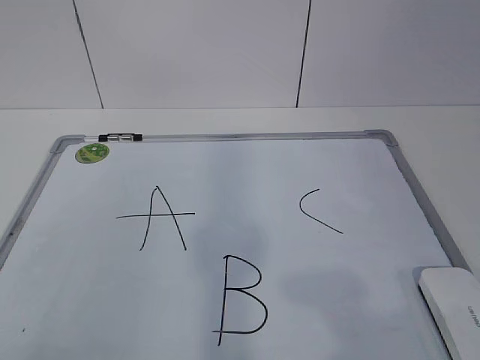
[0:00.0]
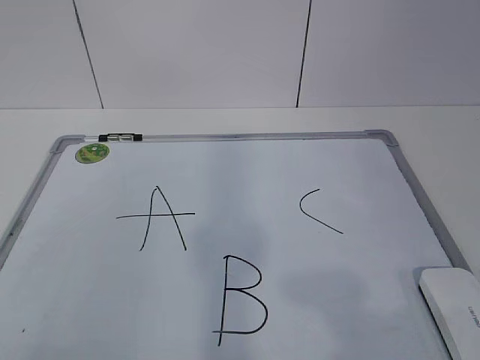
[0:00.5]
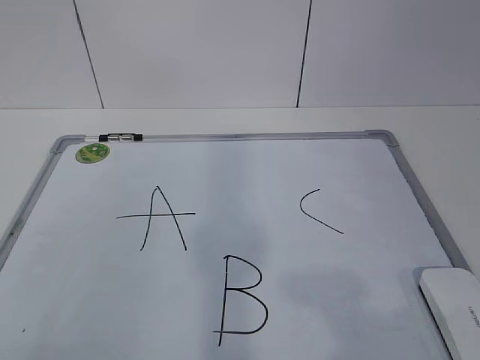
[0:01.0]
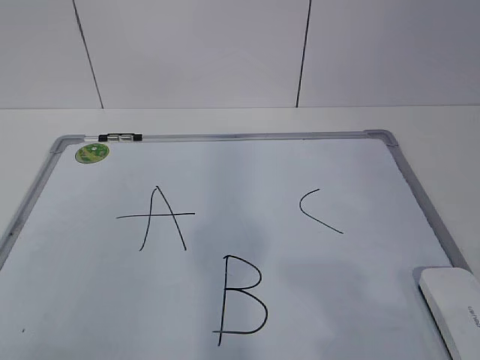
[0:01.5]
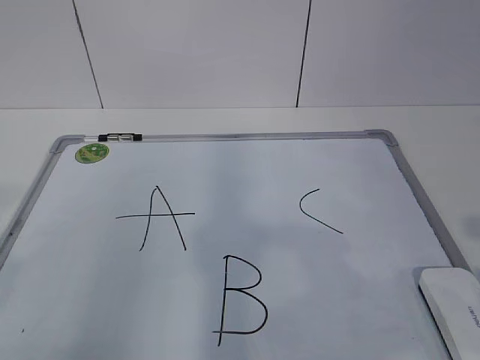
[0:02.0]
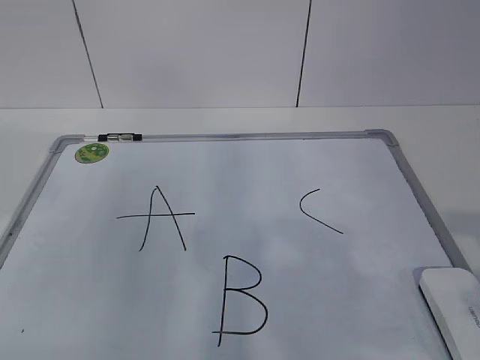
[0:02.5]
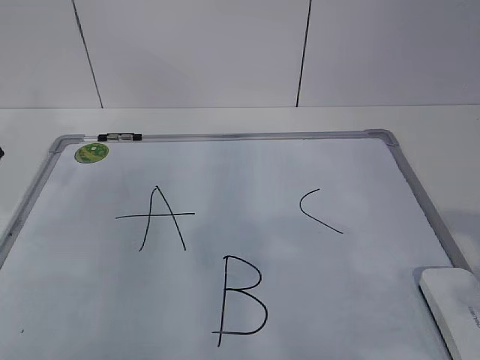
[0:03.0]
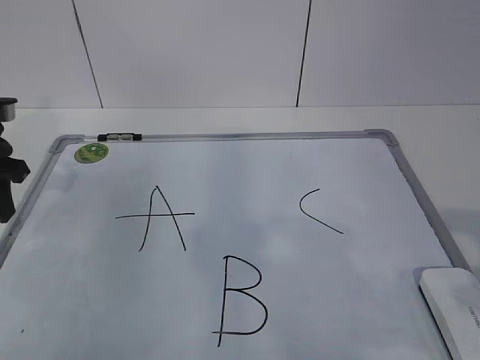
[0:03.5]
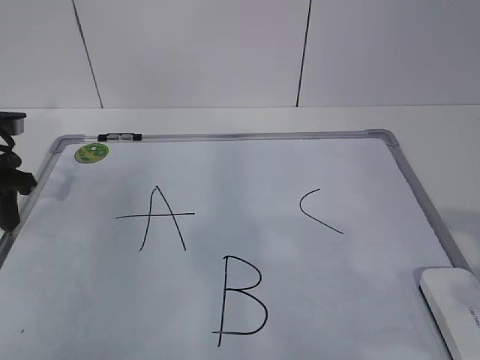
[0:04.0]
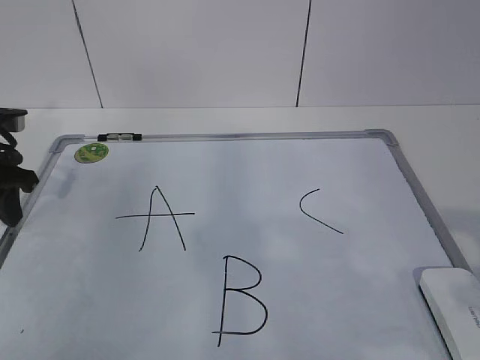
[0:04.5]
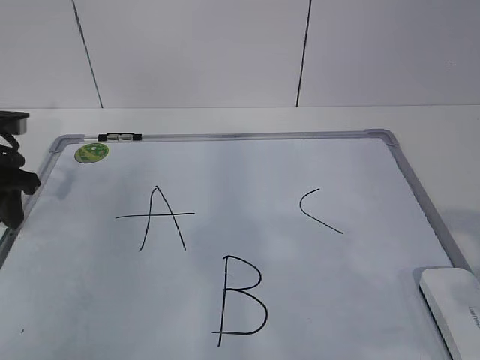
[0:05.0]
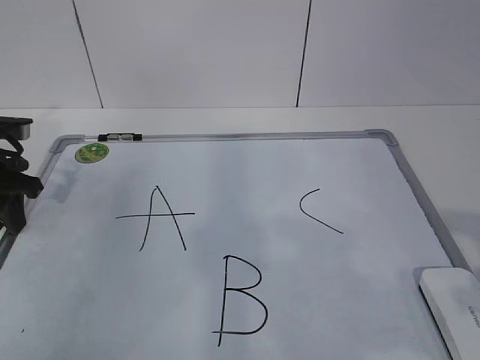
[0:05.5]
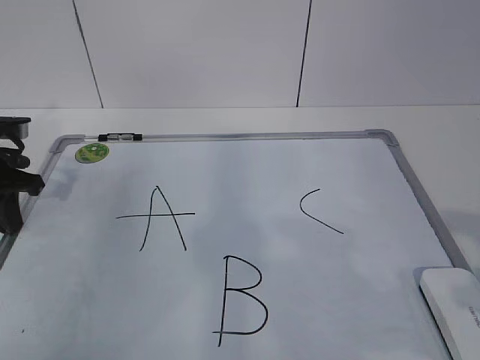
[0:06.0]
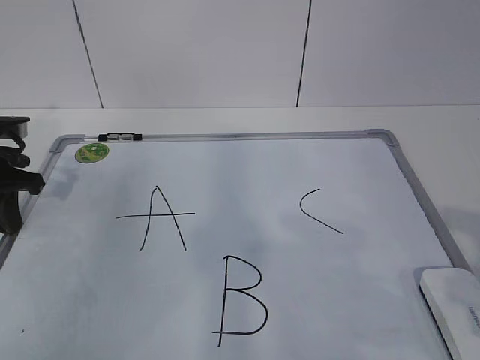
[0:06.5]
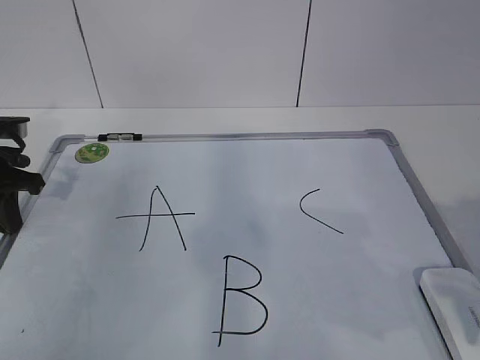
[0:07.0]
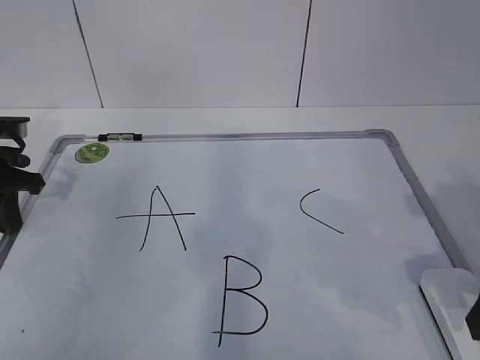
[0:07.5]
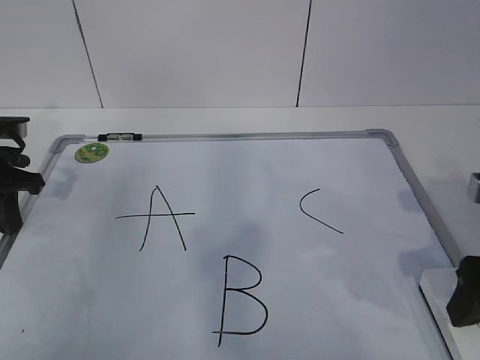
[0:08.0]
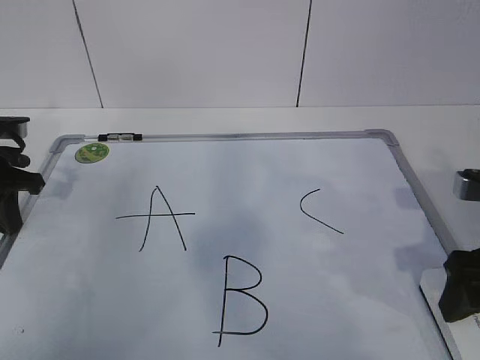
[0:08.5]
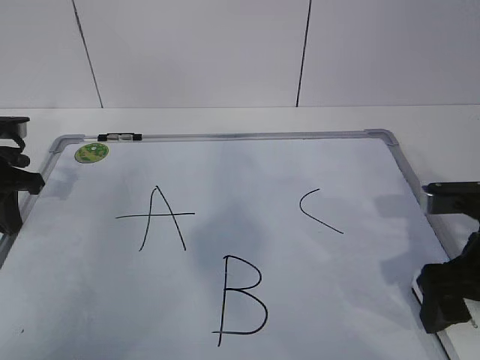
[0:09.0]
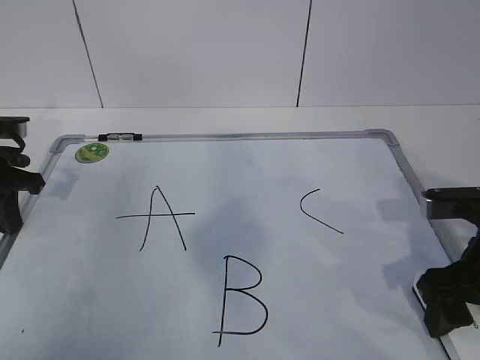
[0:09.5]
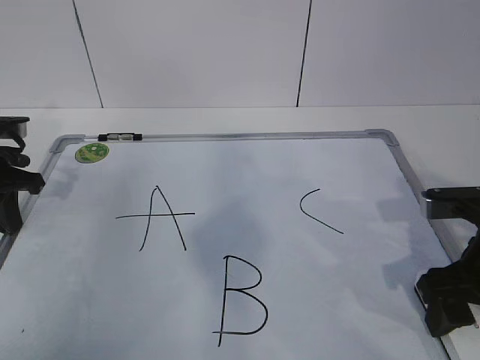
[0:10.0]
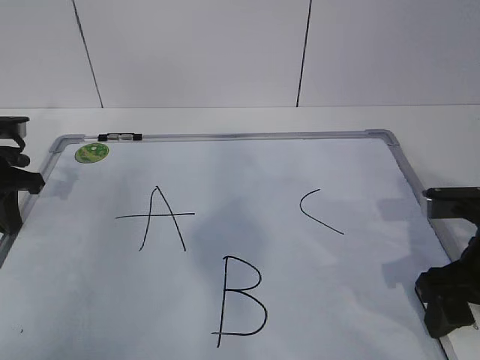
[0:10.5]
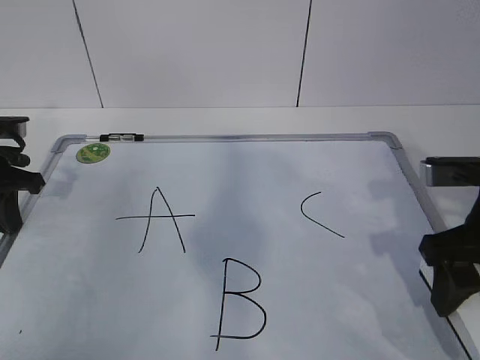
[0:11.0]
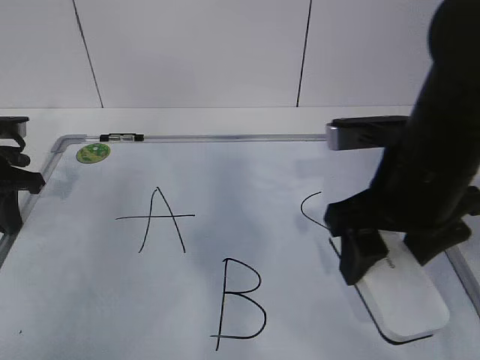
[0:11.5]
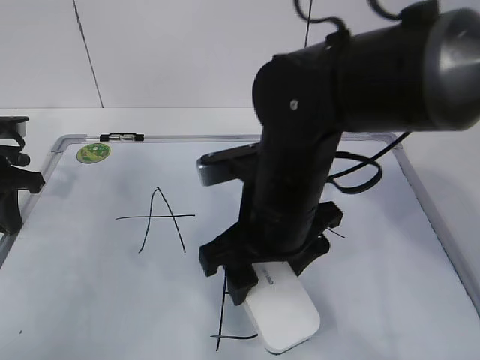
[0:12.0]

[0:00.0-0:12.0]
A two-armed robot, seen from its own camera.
Task of the whole recording: pick up the eraser on the blackboard and erase the letter "B".
Step, 0:00.0 to 0:05.0: Hold the drawing board steady with your left hand.
Step, 0:05.5 to 0:08.5: Grab the eraser with your right hand.
0:02.0 to 0:04.0: The left gripper goes roughly 30 cm forward and downward.
0:04.0 to 0:06.0: The left gripper closes up.
0:06.0 to 0:08.0: The right gripper travels forward and downward by some 15 cm, and opens its fingers.
0:08.0 to 0:10.0: There are only small adjustments of the grippers.
0:10.0 to 0:12.0: The right gripper shifts roughly 20 cm to the left.

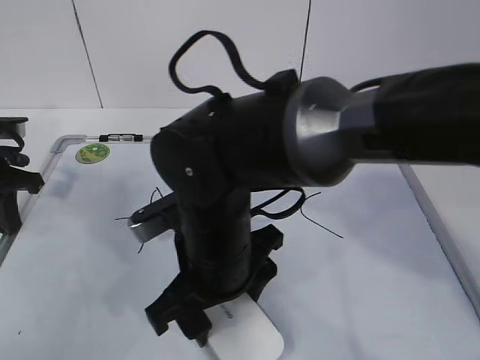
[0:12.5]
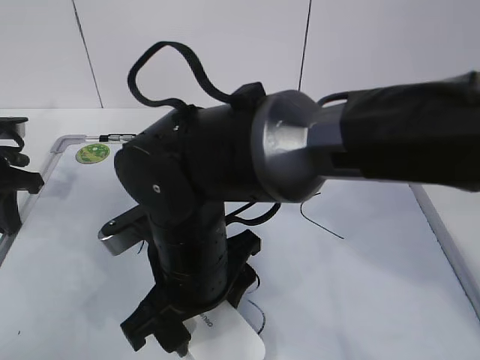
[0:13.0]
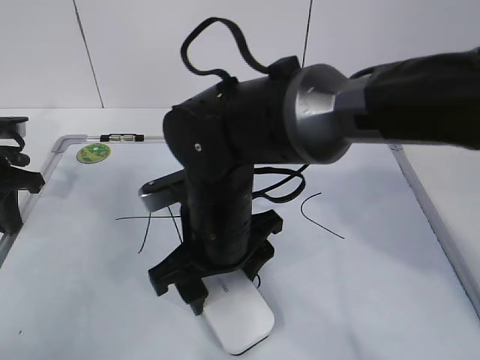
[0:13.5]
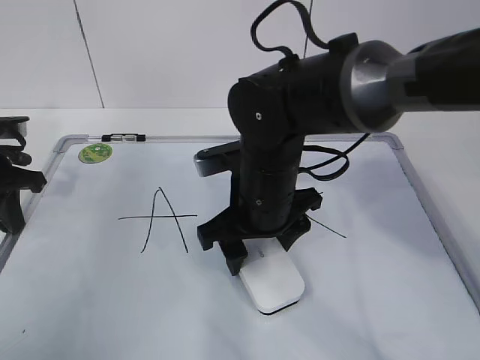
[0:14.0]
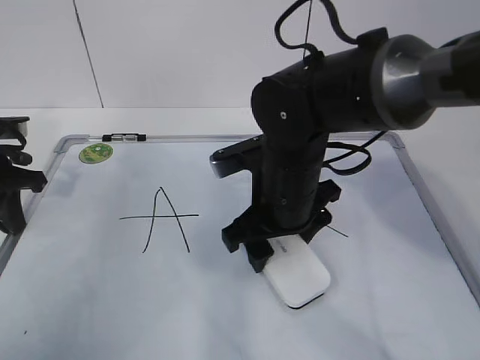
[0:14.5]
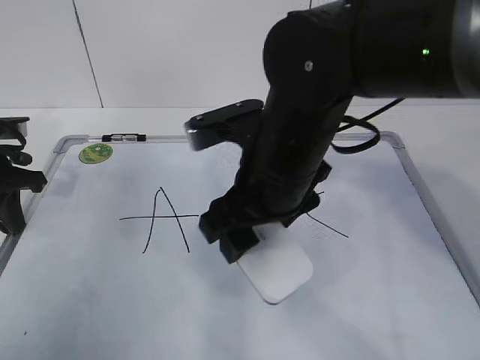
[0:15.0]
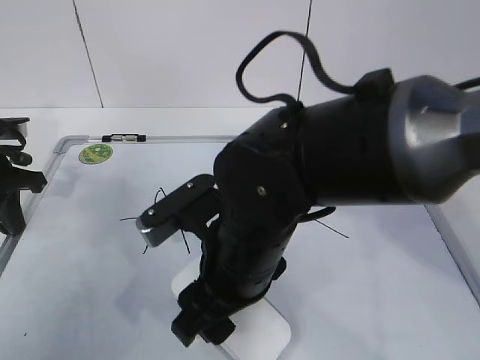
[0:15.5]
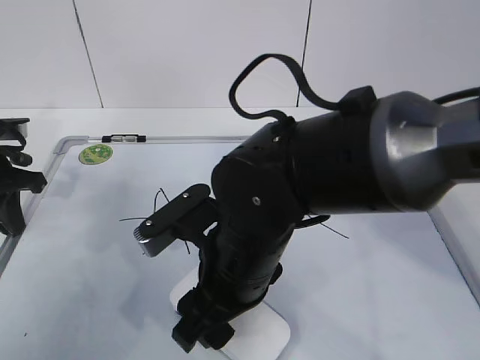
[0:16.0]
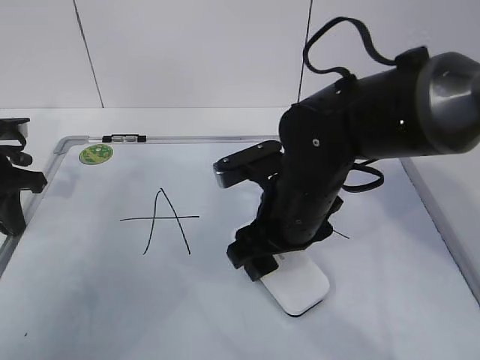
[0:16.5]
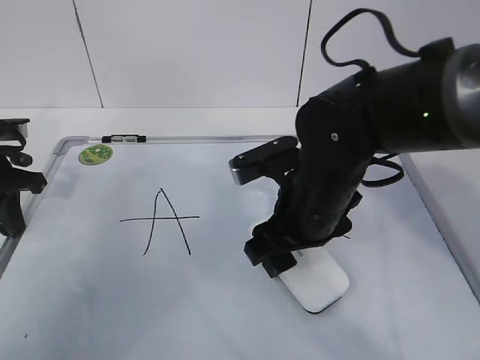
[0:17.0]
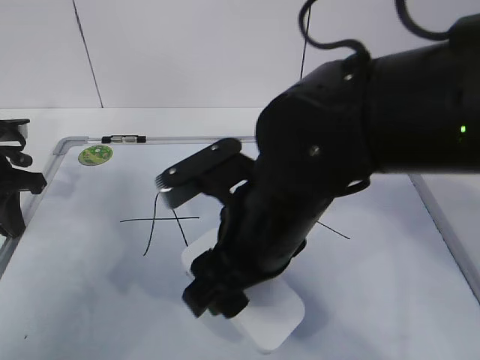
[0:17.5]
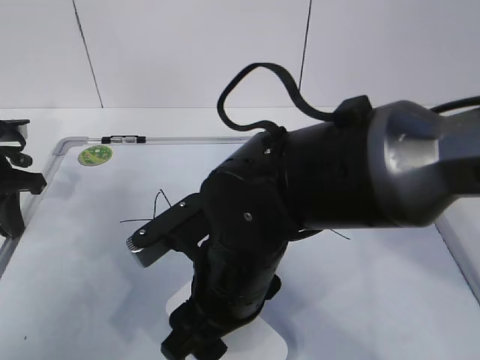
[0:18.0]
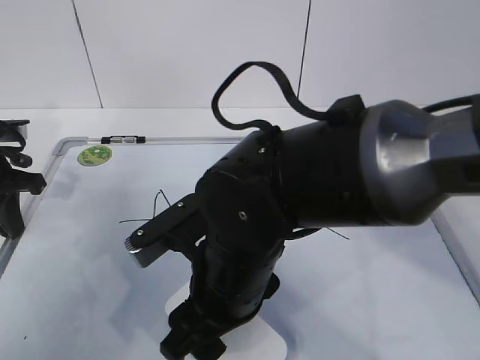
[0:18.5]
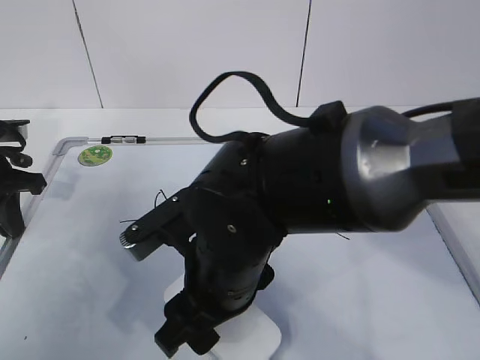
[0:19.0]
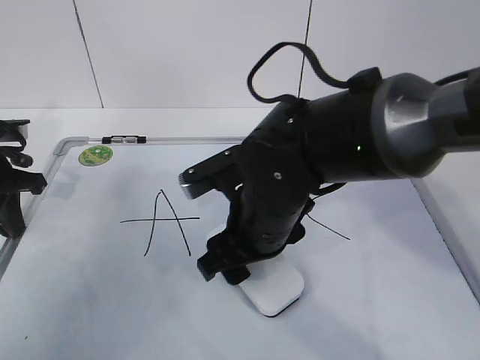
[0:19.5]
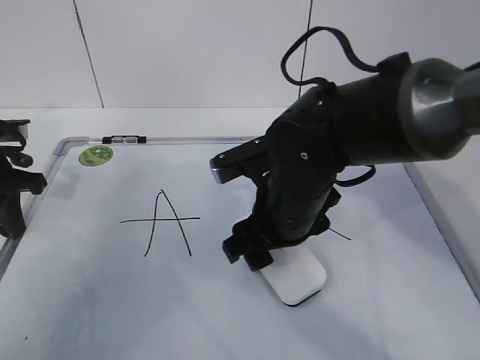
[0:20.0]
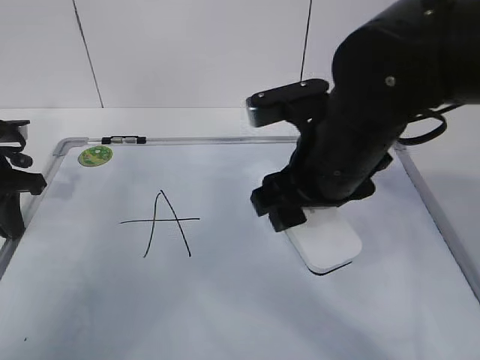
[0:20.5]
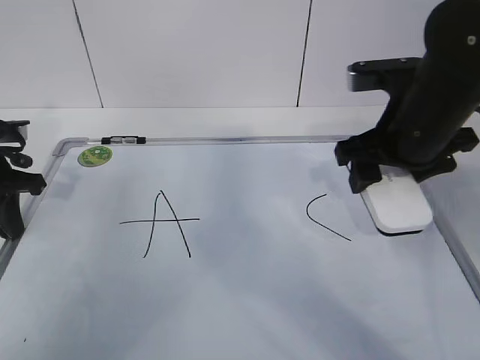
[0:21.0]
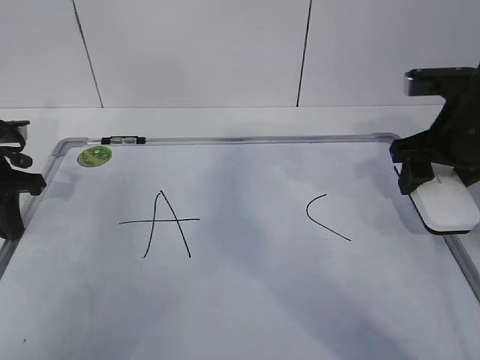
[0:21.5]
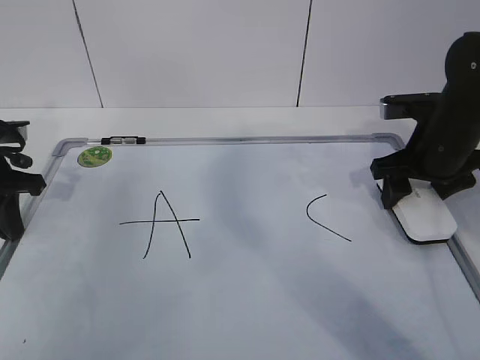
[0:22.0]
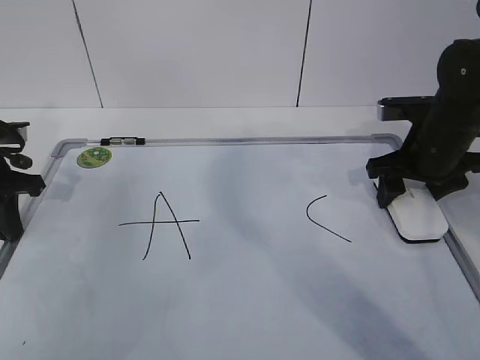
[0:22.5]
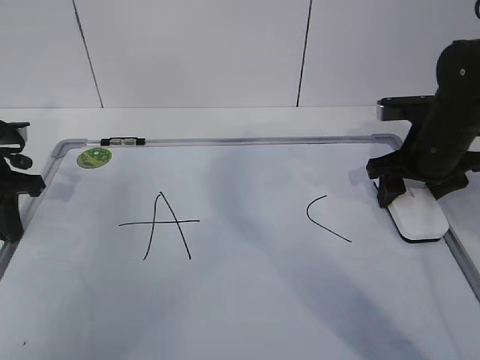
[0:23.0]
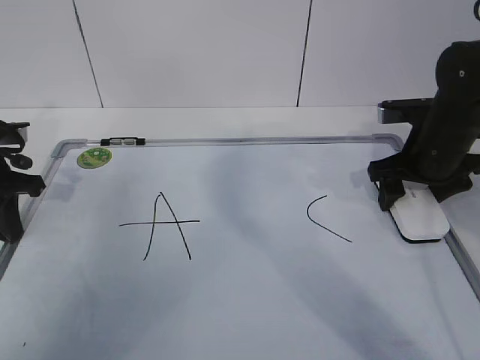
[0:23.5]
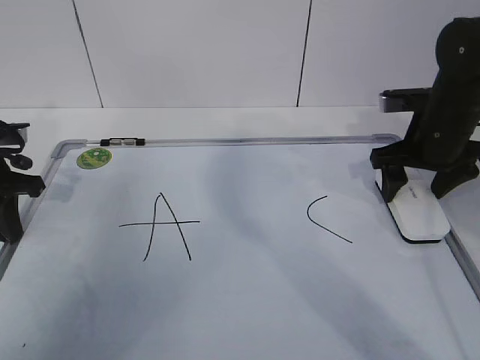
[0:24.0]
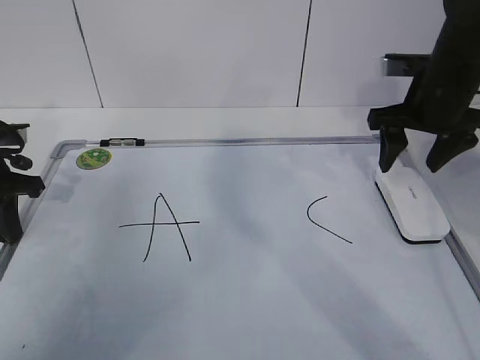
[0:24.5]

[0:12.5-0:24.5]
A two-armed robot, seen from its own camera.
Task of the whole recording: pick up the eraser on the blackboard and erase the letter "B".
Step, 0:12.5 to 0:16.5: Erase the letter B with your right hand.
Step, 0:17.0 to 0:19.0: Put down the eraser with your right hand.
0:12.5 to 0:14.5: The right gripper is displaced to the right and forward by approximately 10 cm.
0:14.5 to 0:16.5: The right gripper travels backward and back again, roughly 10 cm each way.
0:16.5 to 0:18.5: The right gripper is displaced backward and to the left by approximately 10 cm.
0:18.5 to 0:20.5: The right gripper travels to the right, upward and forward by approximately 15 cm.
0:20.5 to 0:22.5: The right gripper moves to the right and forward, some 20 cm.
0:22.5 to 0:24.5: The right gripper moves upward, about 5 cm.

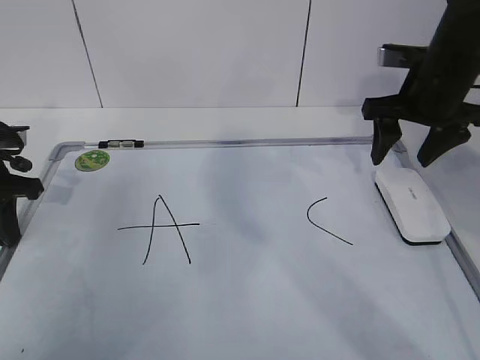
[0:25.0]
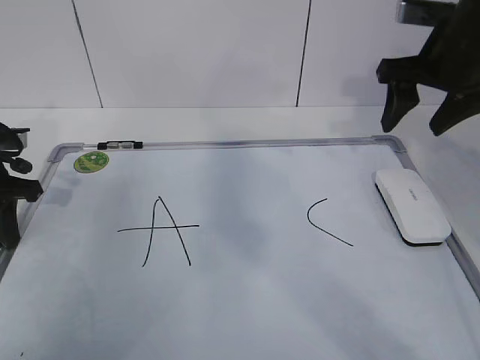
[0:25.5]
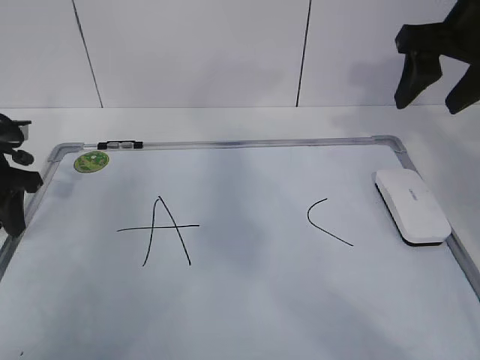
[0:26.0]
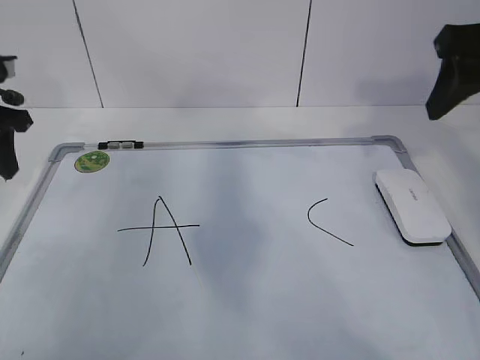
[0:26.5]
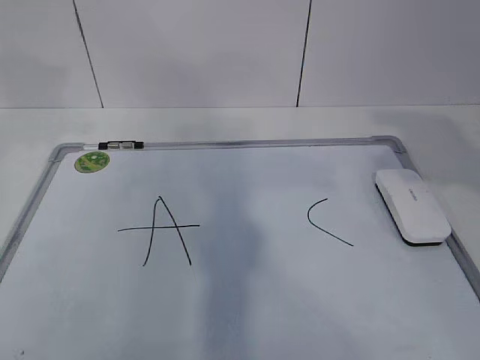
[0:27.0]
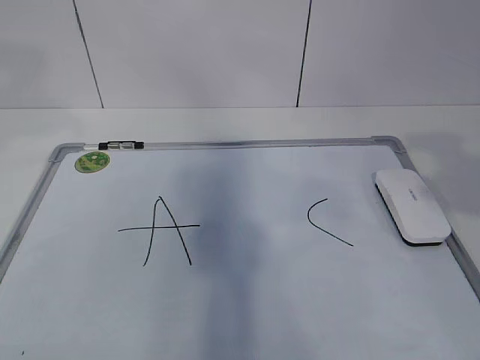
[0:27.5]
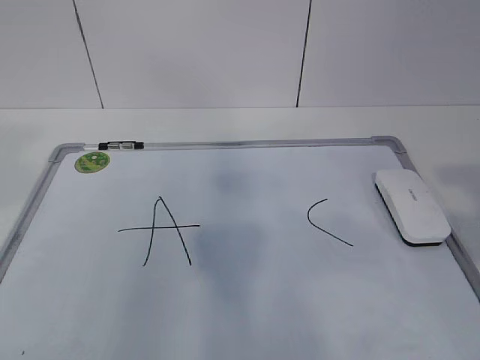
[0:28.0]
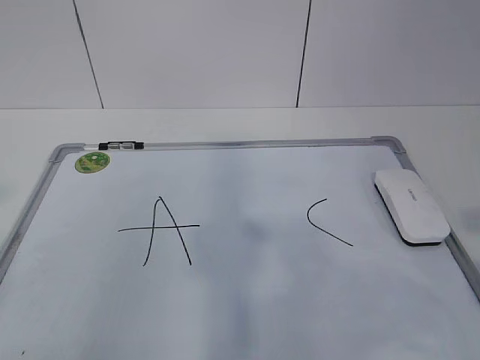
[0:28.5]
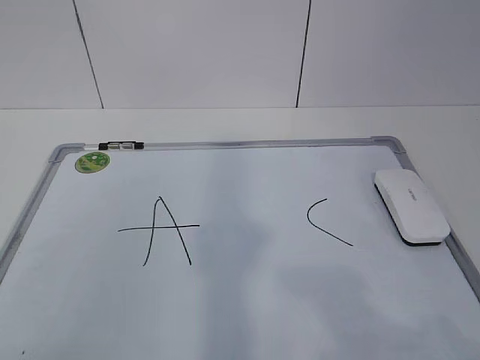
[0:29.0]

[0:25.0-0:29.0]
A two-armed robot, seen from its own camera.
Task of the whole recording: pick up the eraser on the blackboard and erase the letter "B".
0:25.0 to 0:27.0: The left gripper moves upward, approximately 20 cm, and opens its fingers; the right gripper goes approximately 20 cm backward and upward.
0:27.0 to 0:29.0: Both grippers move backward, approximately 25 cm.
